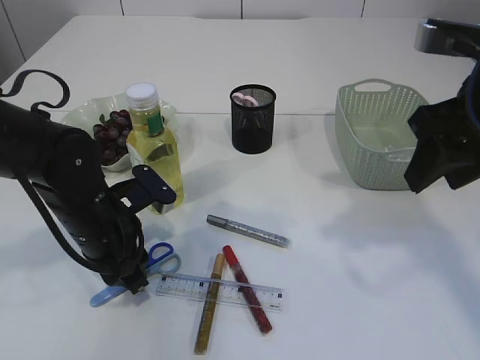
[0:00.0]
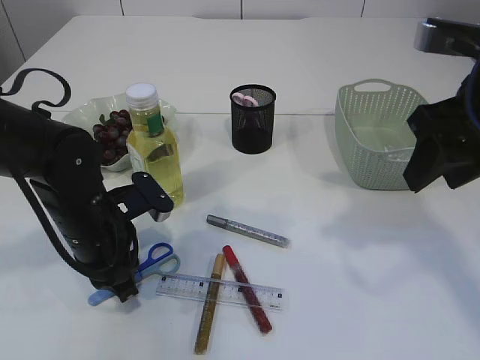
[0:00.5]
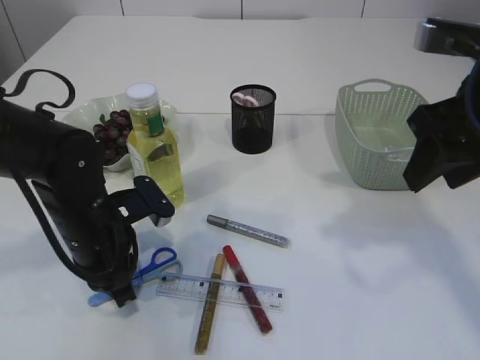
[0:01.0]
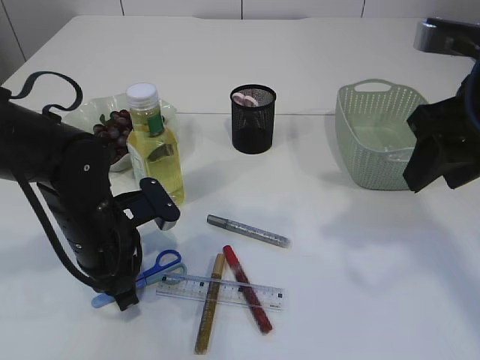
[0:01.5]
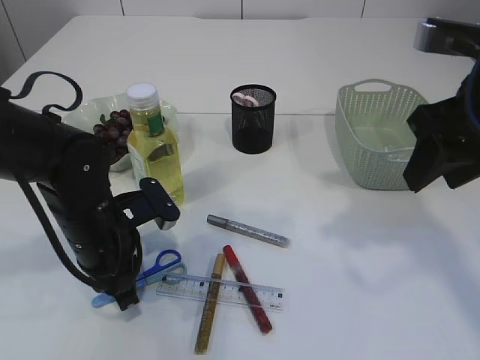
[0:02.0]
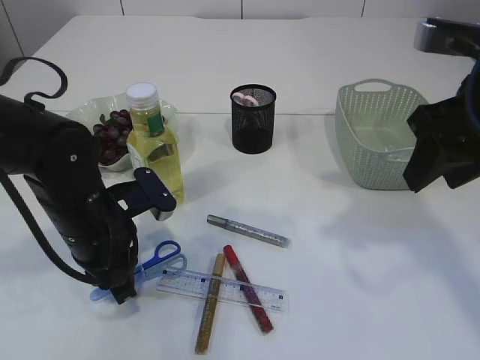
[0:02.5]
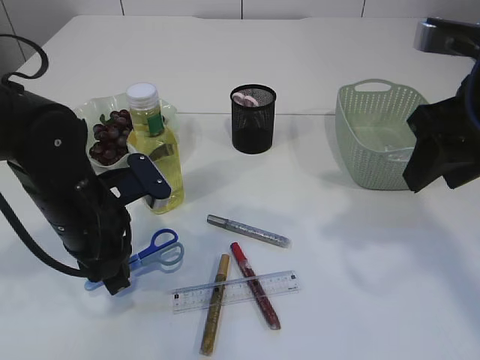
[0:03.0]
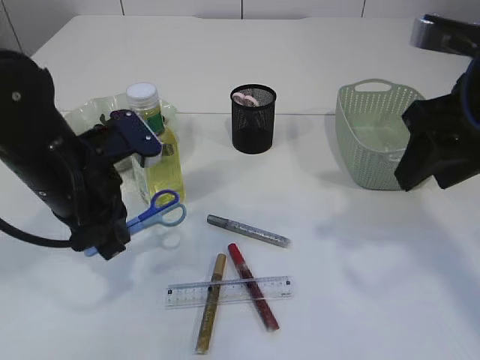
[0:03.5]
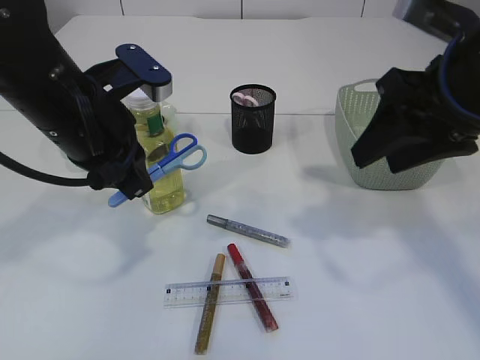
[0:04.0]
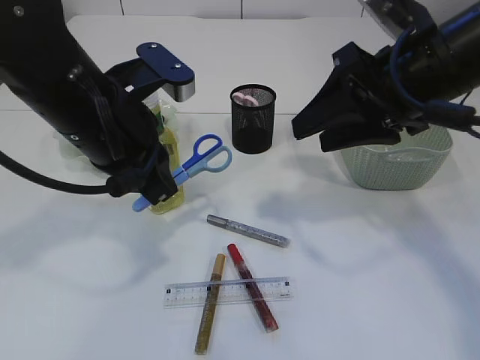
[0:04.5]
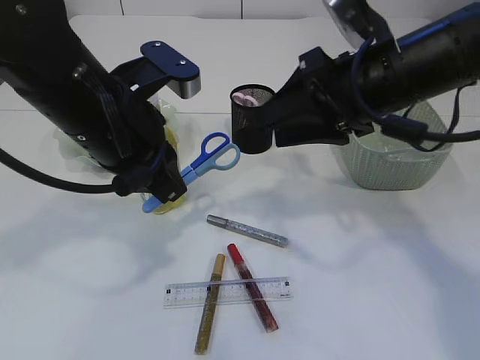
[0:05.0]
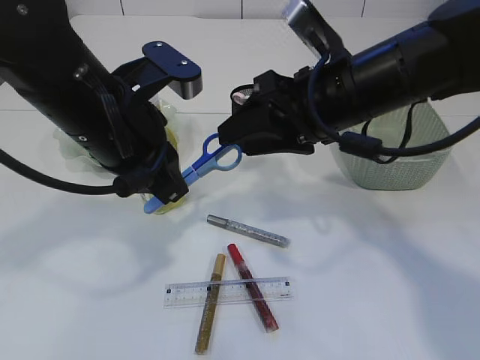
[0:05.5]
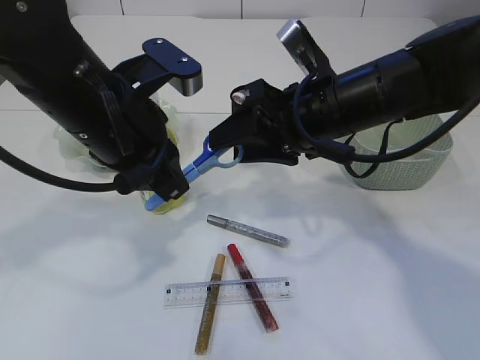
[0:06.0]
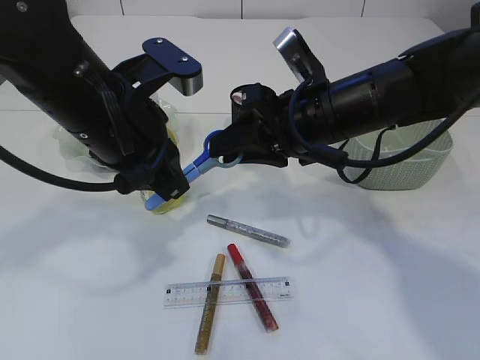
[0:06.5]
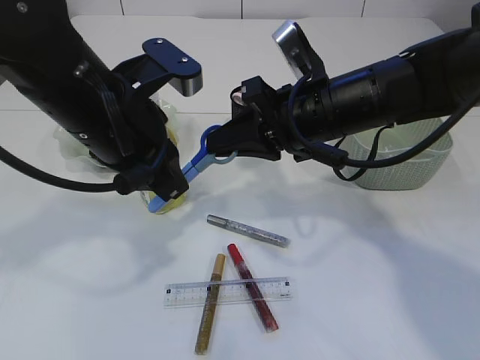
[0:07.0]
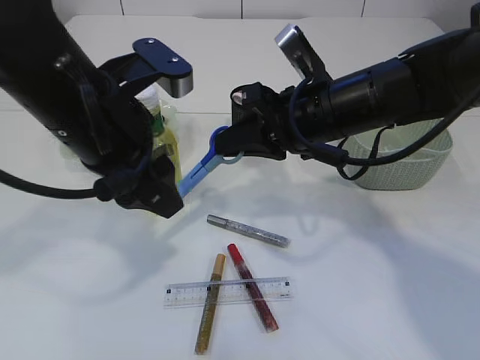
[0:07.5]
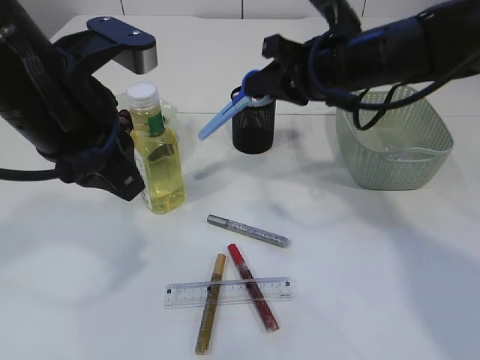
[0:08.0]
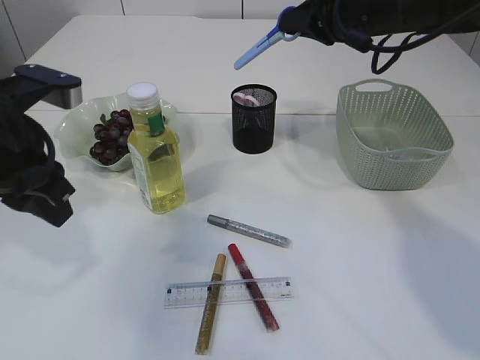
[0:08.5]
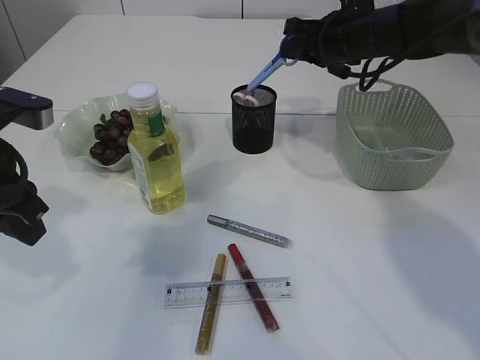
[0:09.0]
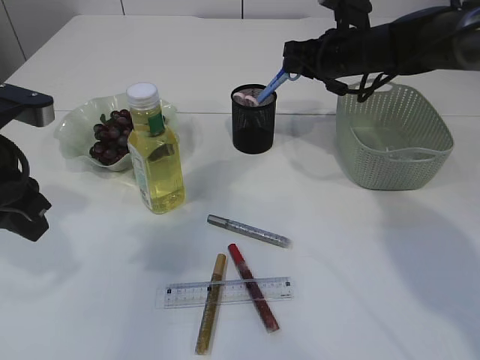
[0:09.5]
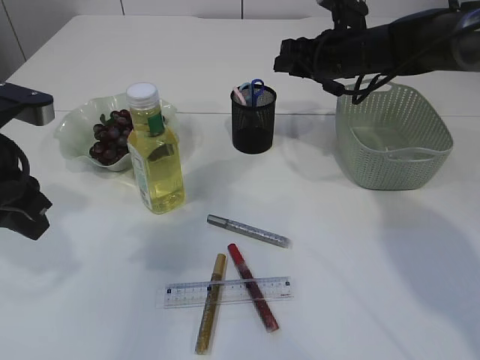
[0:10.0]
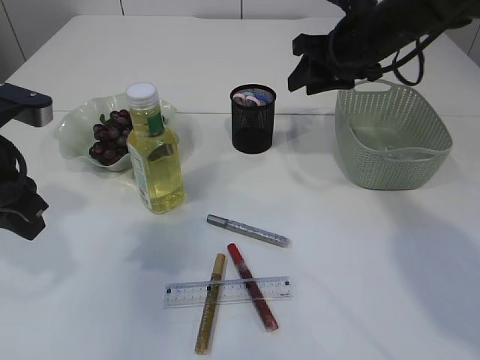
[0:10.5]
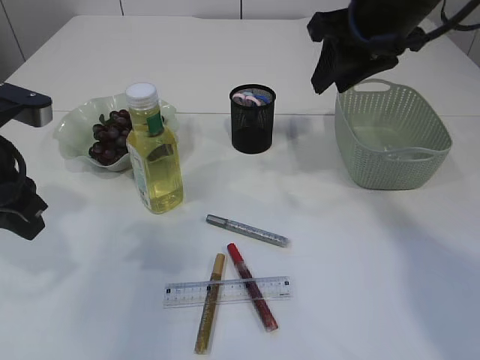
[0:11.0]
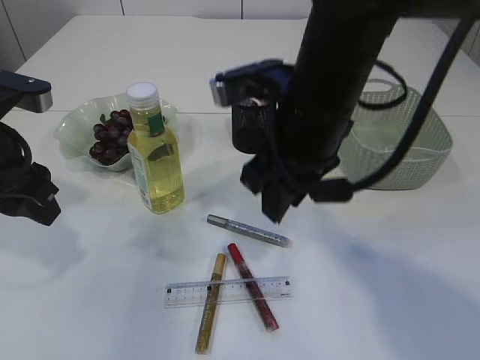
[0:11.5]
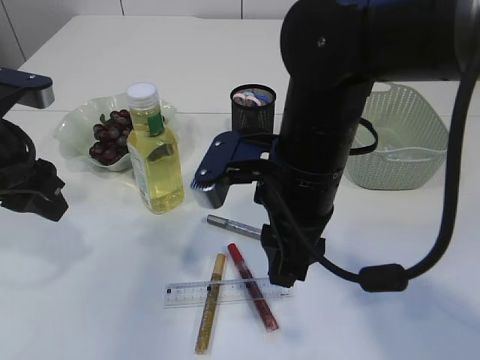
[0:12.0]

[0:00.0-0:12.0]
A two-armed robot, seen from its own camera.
Step, 0:00.0 to 0:03.5: pick up the blue scissors.
Step, 0:04.0 to 0:08.0: Hand over the blue scissors.
Step, 0:08.5 to 0:10.5: Place the blue scissors into the pen holder.
0:00.0 to 0:02.0: The left gripper closes.
0:02.0 to 0:04.0: The left gripper shifts about 15 cm upward.
0:04.0 to 0:06.0: The right gripper goes roughly 15 cm to the left, downward and forward.
0:06.0 to 0:08.0: The left gripper ends up roughly 5 cm from where it was, and opens and closes again. Meanwhile the right gripper ends up roughly 5 cm from where it was, and closes.
0:08.0 to 0:10.0: The right gripper travels forward by some 10 cm, and opens, while the left gripper goes some 10 cm to the left and downward.
0:10.0 to 0:12.0: The right gripper goes some 25 cm backward and to the left; the left gripper opens its fingers.

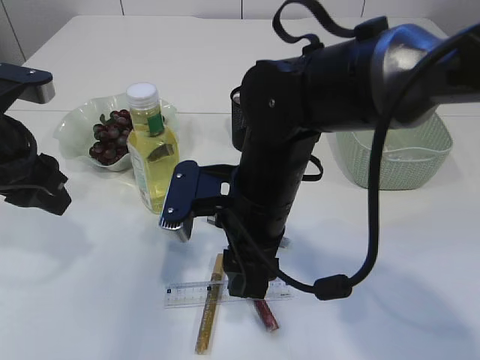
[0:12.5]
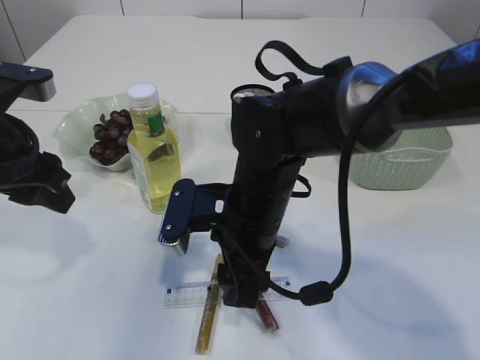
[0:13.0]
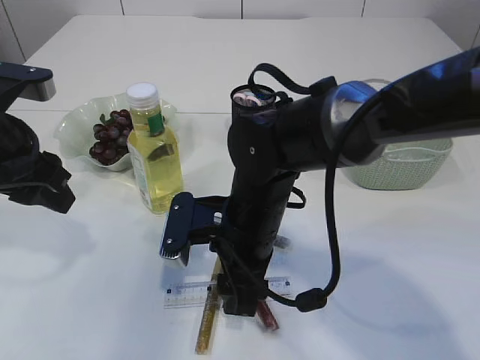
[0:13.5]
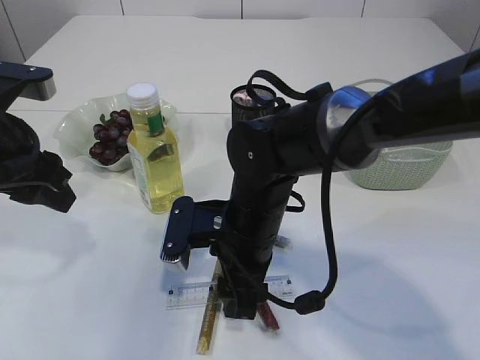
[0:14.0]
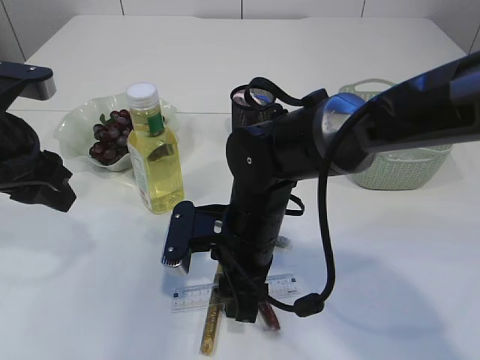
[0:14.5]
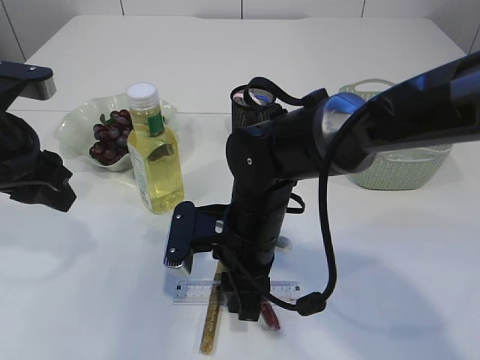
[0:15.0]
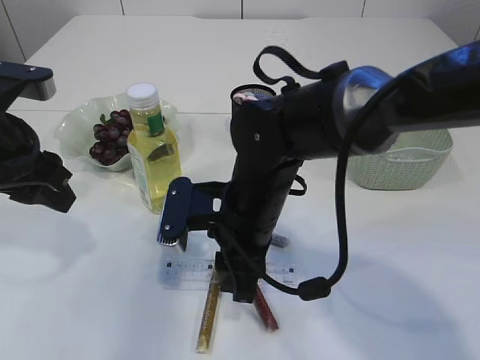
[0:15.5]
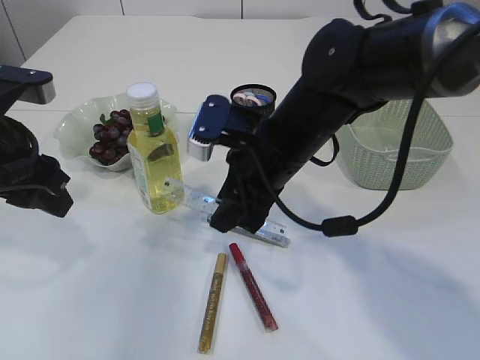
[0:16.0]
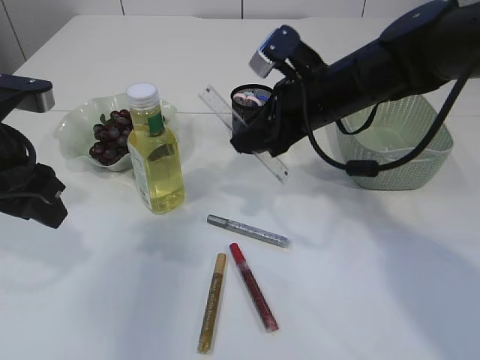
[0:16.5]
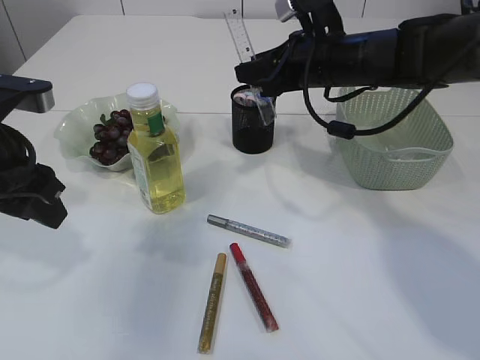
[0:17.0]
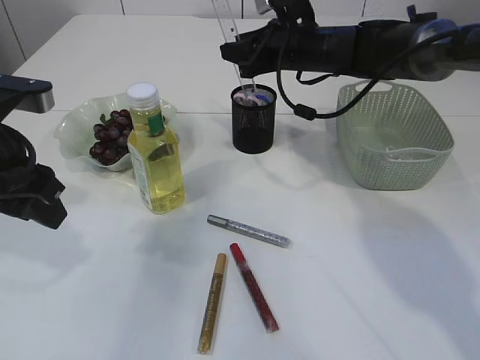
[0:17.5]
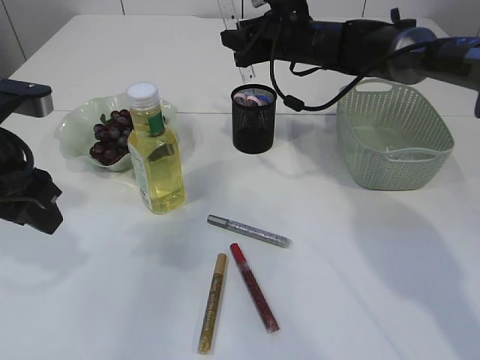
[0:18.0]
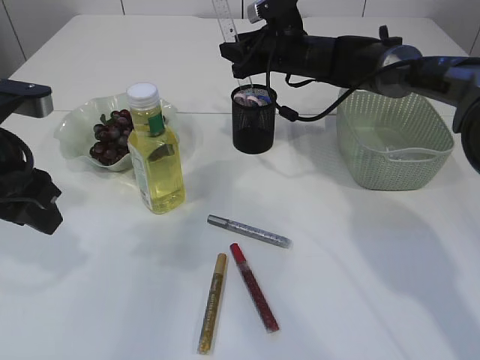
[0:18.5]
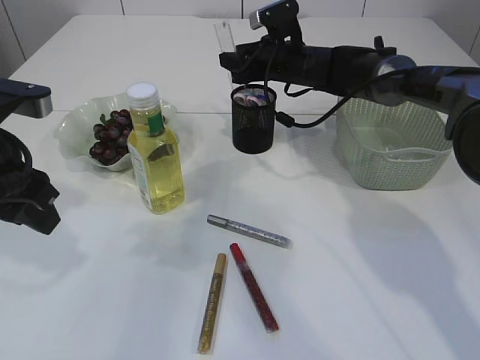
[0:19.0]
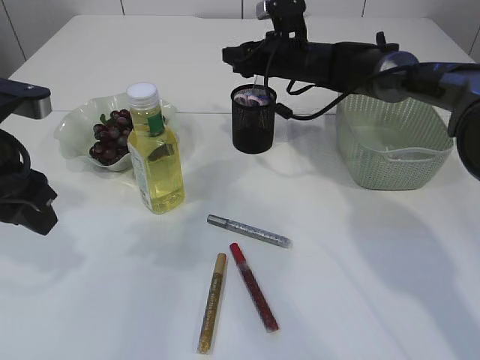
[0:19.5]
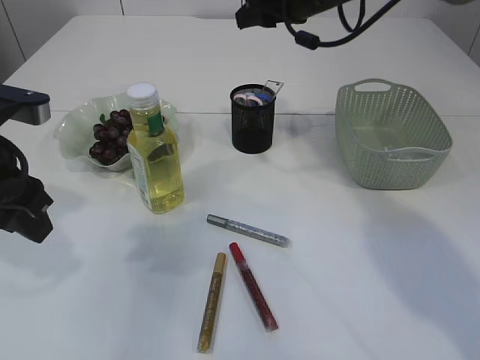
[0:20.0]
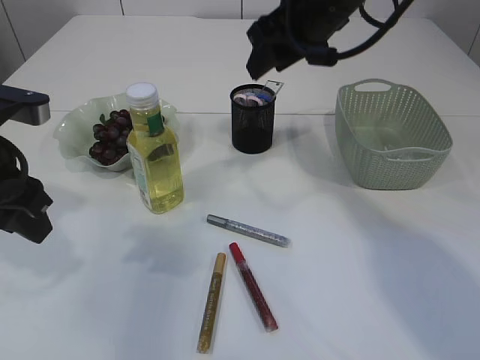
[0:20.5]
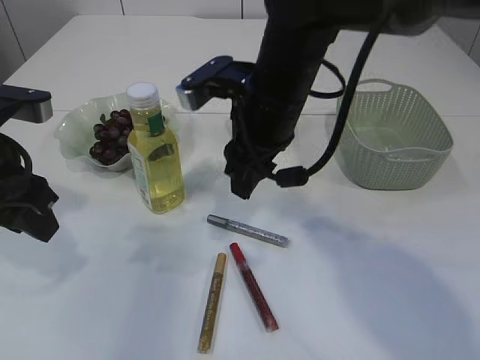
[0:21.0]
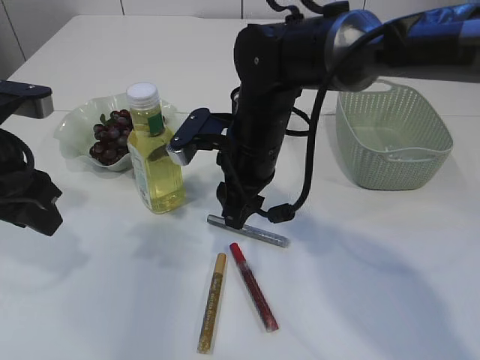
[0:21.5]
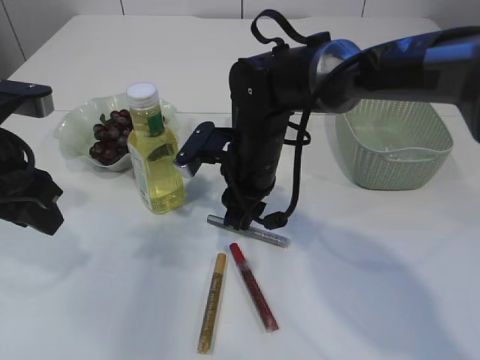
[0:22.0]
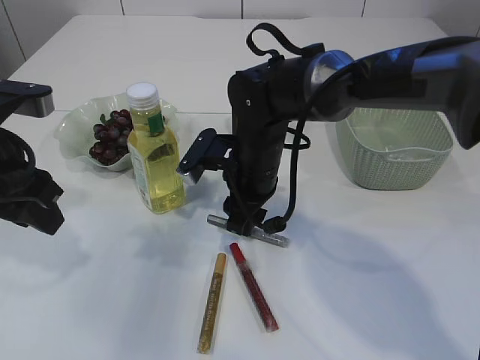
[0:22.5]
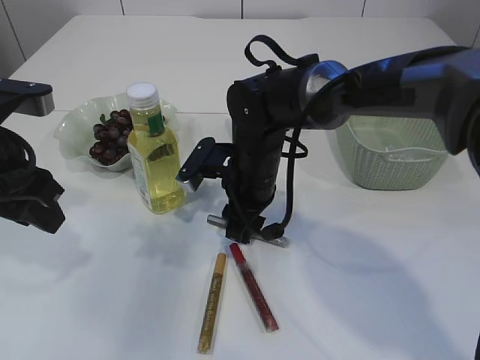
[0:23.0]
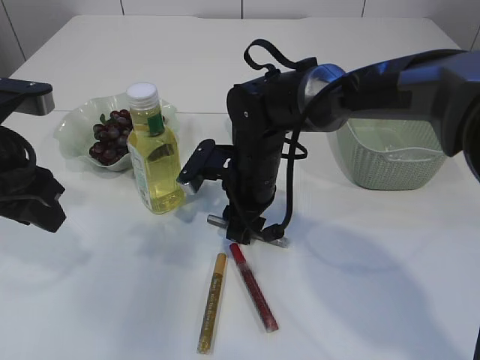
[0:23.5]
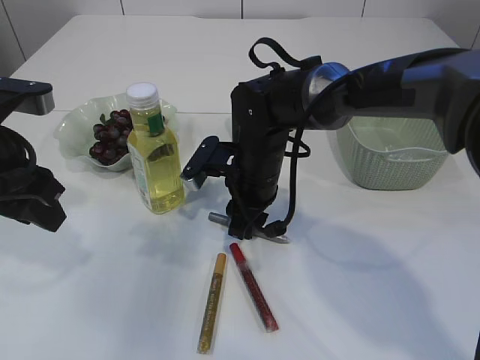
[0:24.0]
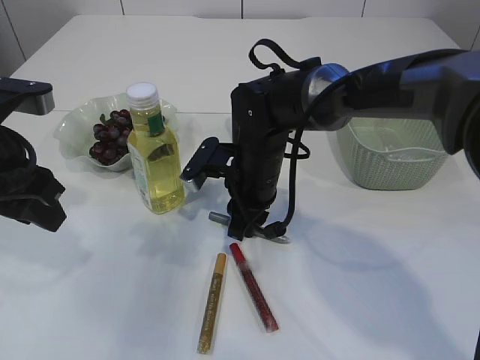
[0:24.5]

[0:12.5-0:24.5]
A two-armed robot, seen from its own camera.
Step, 0:12.5 to 0:16.0: pick up the ruler.
Step, 0:16.5 to 0:20.0: Place the ruler into the pen holder.
0:12.5 to 0:14.5: The right gripper shifts roughly 5 cm downward.
0:14.5 to 0:16.5: The right gripper shifts roughly 15 cm upward, to the right and forward.
0:16.5 to 0:18.5: The right gripper goes approximately 15 cm forward.
0:18.5 to 0:20.5: The right gripper travels backward and upward by some 20 cm.
0:20.5 to 0:22.5: The right gripper moves downward and to the left, approximately 20 cm.
0:22.5 to 0:24.5: The grippers make only small movements.

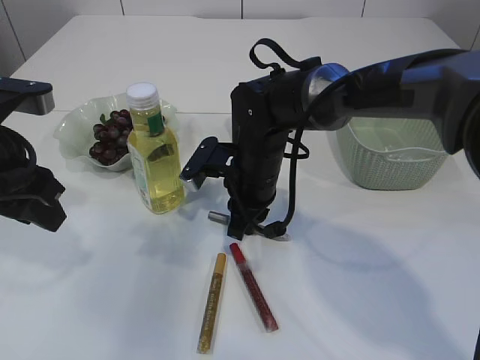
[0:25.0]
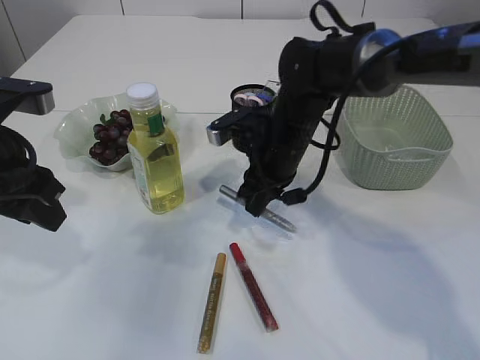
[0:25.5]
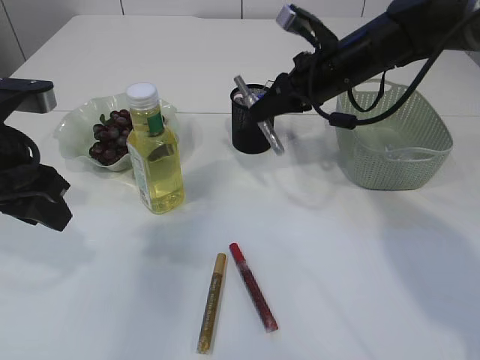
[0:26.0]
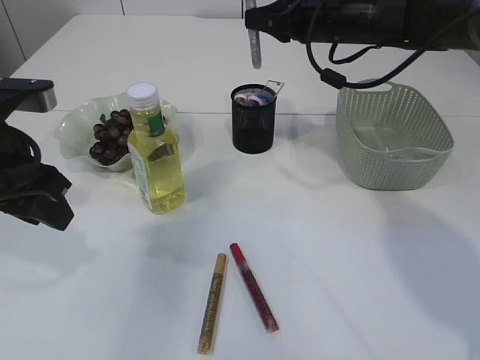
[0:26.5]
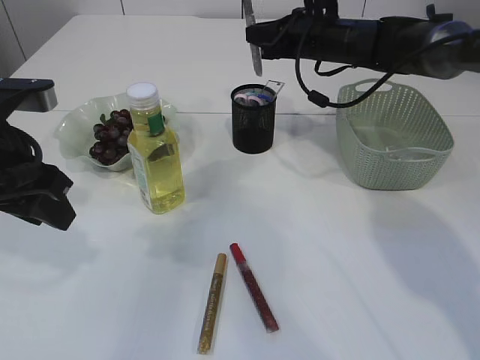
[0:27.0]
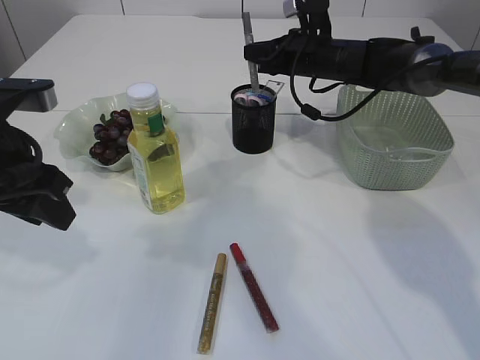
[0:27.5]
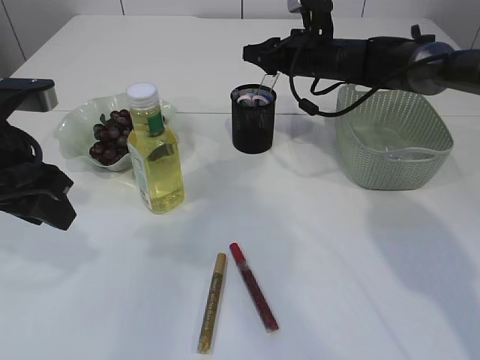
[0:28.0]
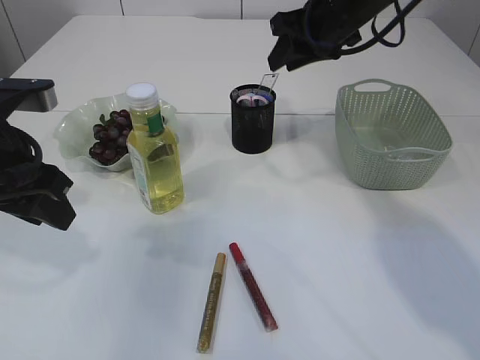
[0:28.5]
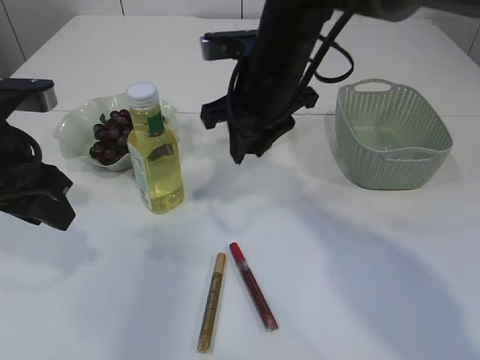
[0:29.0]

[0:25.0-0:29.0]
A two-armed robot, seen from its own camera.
Step, 0:26.0 to 0:28.5: place the silver glue into the pen holder.
0:25.0 to 0:27.0: The right gripper travels forward, to the right and upward by some 20 cm.
0:27.0 to 0:29.0: The right gripper shifts approximately 15 cm backward and to the left, and opens its fingers.
